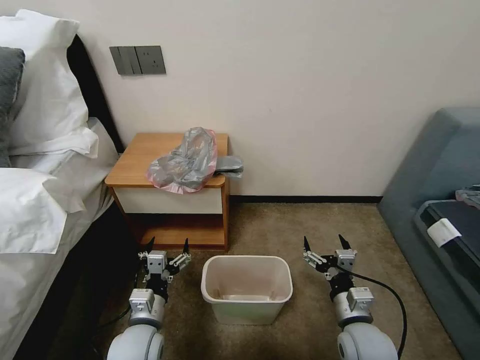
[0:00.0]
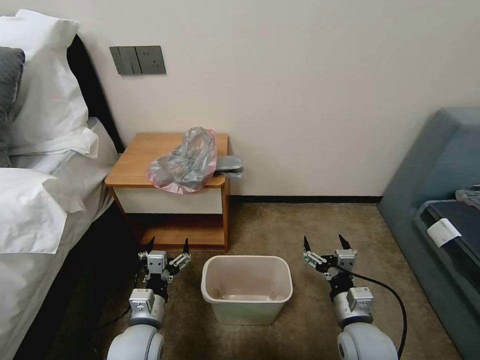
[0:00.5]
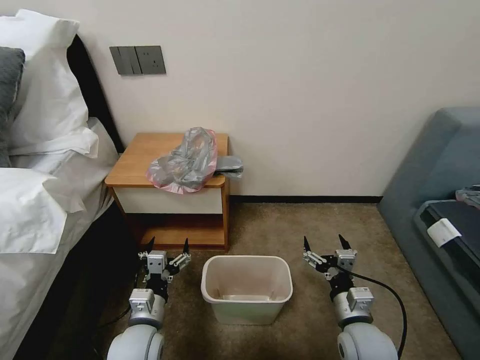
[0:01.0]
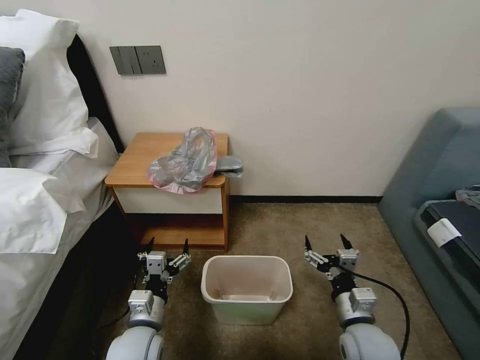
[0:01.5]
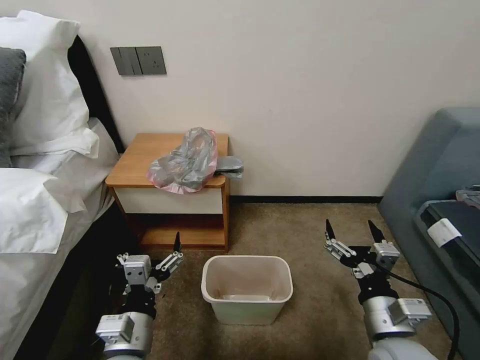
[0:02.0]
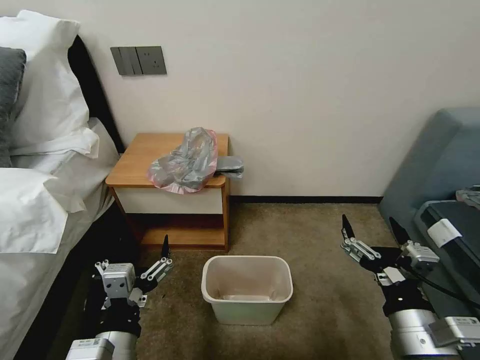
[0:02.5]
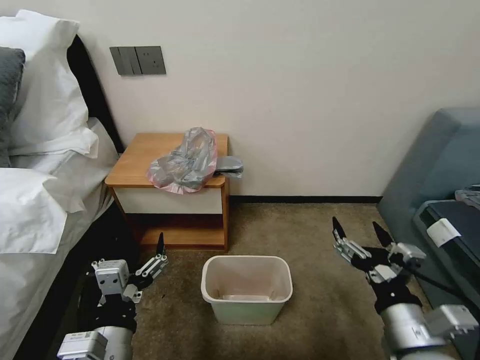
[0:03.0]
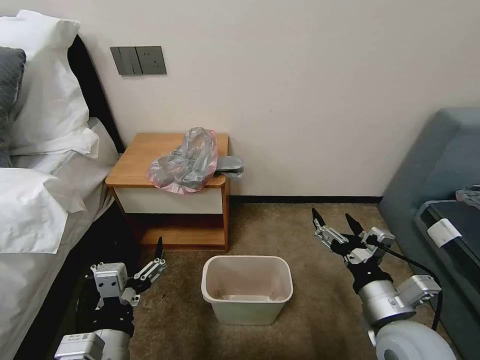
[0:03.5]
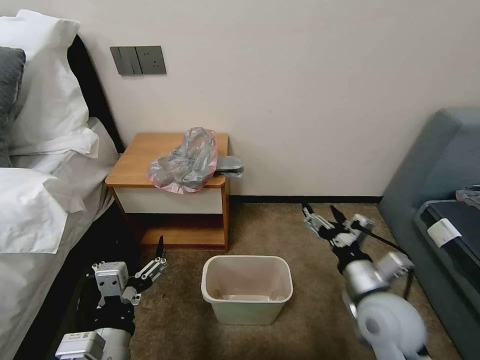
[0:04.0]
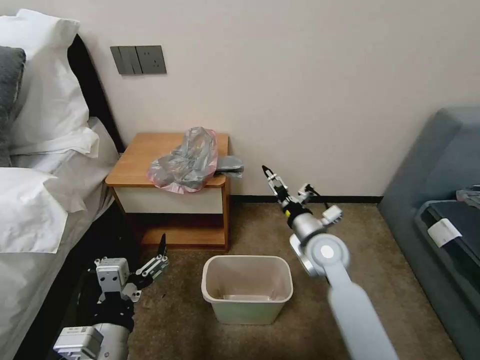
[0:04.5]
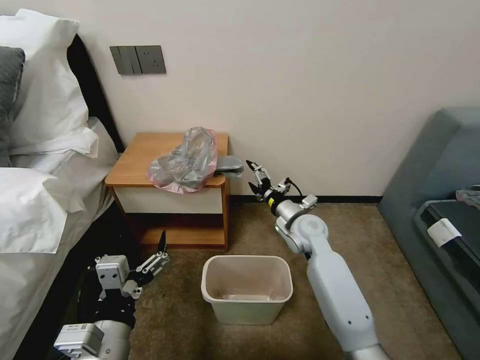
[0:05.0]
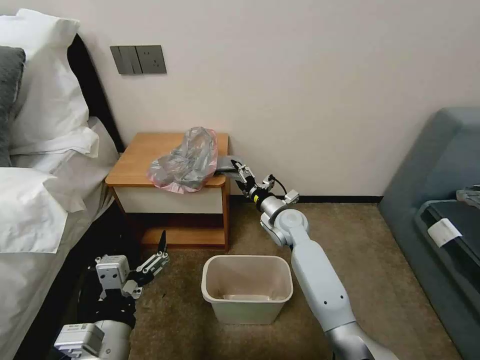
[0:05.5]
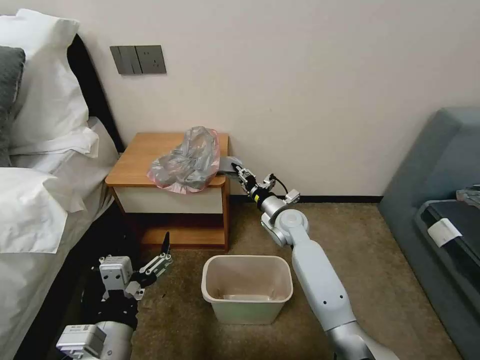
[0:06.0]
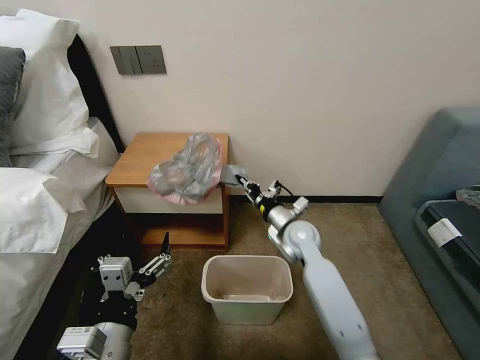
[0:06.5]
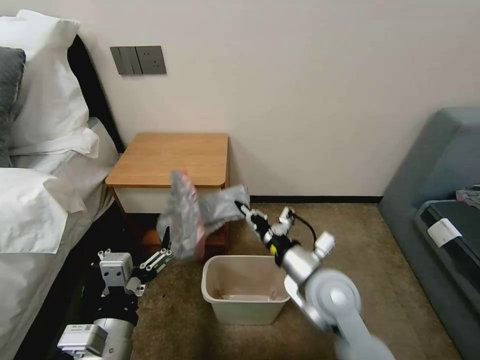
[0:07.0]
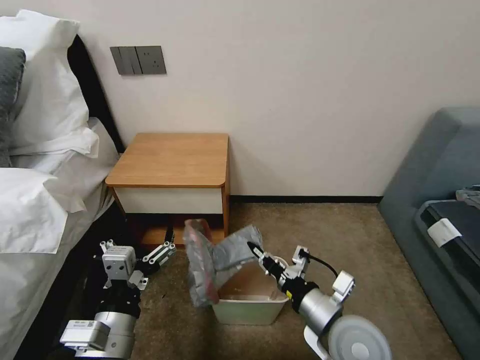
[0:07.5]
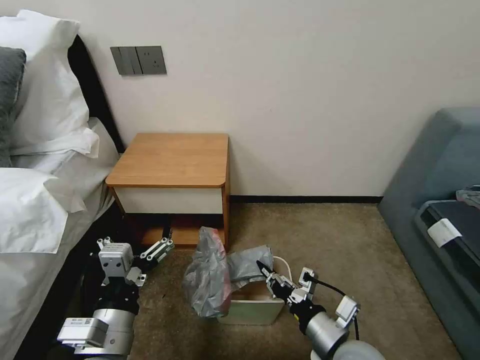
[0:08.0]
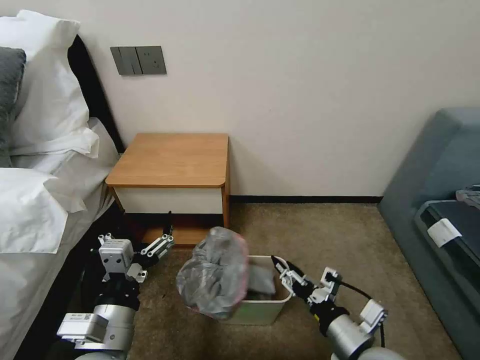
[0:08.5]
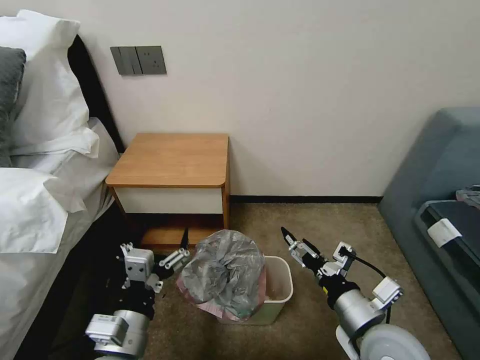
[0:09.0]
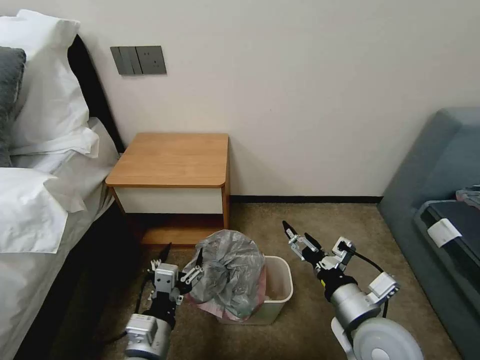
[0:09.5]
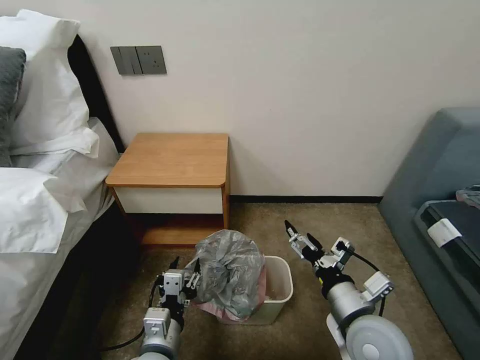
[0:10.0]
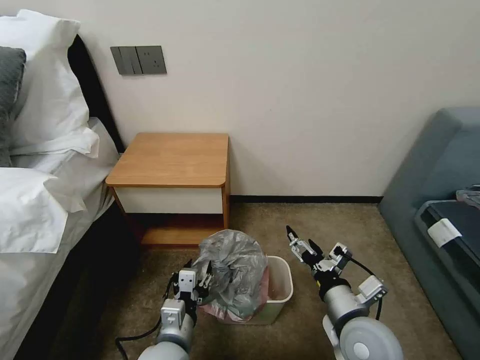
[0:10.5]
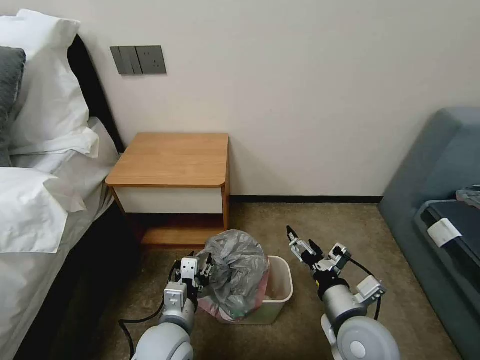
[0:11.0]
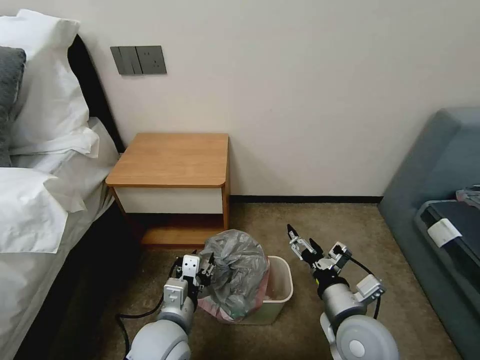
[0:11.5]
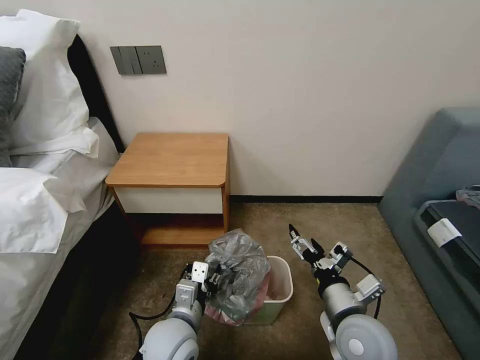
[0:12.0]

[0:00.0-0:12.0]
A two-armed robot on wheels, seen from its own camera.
Task of the whole recording: Pick up the garbage bag from the table and place it over the trash can.
0:02.0 to 0:04.0: The right gripper is displaced forward by some 10 cm. The left gripper changes place by roughly 5 cm.
0:04.0 to 0:06.0: The right gripper heads forward and to the left, covering some 25 cm, and closes its fingers.
0:06.0 to 0:08.0: The right gripper travels backward by about 30 cm.
0:08.0 to 0:10.0: The right gripper heads upward, covering some 5 cm, and opens its fingers. The left gripper goes about 10 cm downward, and closes up.
0:10.0 to 0:12.0: The left gripper moves forward, about 5 cm.

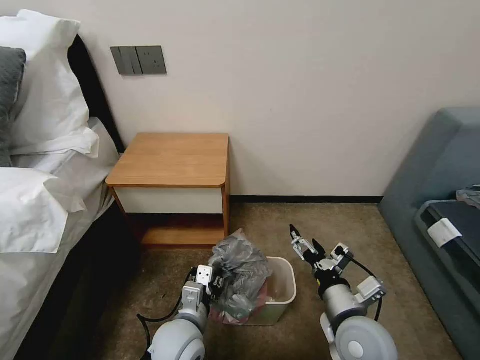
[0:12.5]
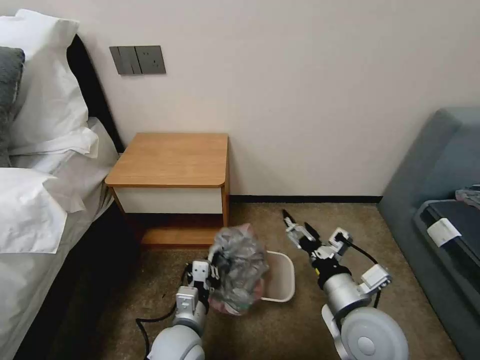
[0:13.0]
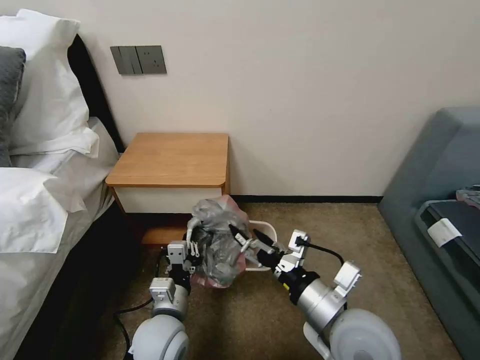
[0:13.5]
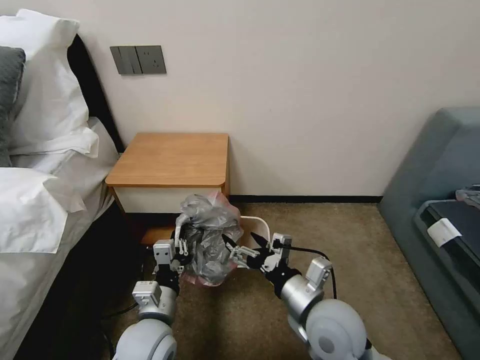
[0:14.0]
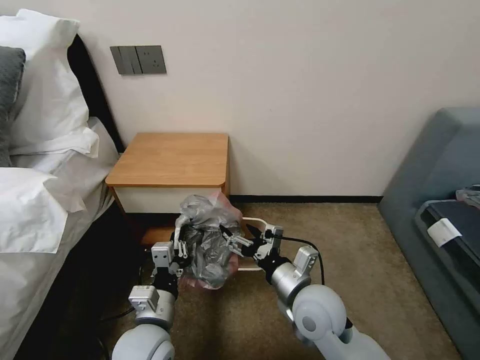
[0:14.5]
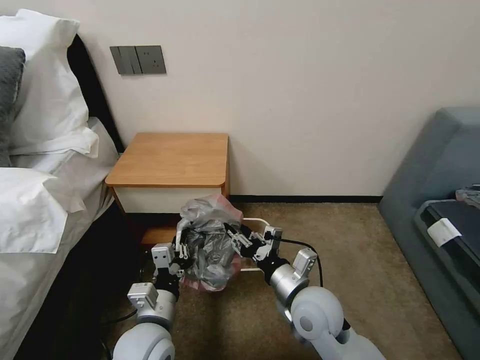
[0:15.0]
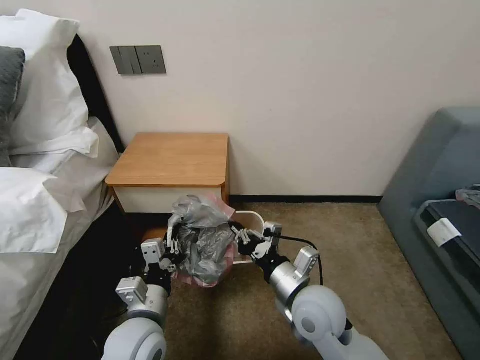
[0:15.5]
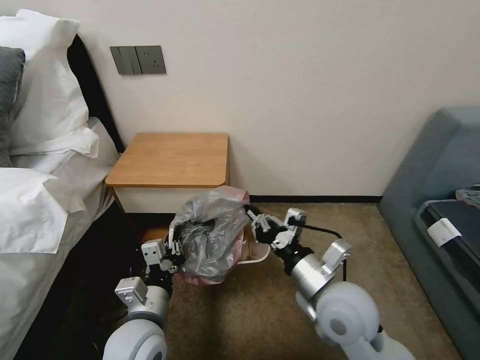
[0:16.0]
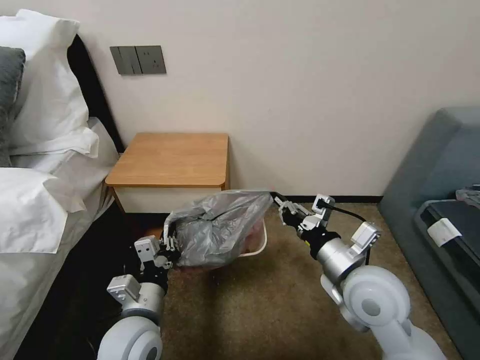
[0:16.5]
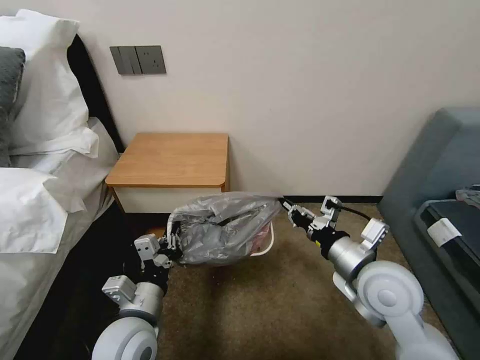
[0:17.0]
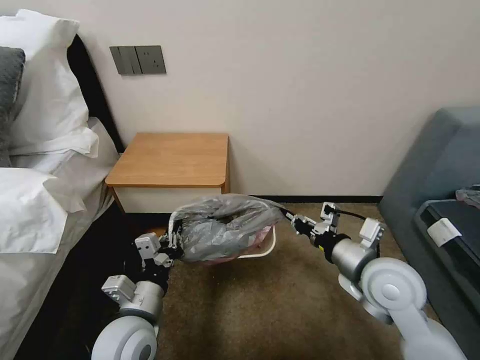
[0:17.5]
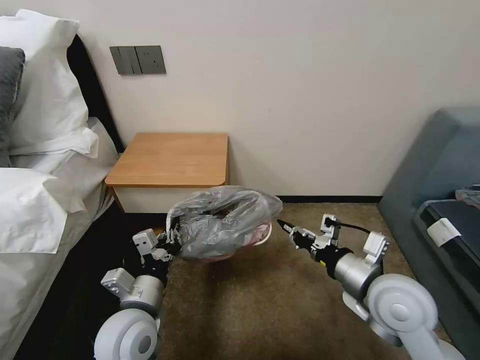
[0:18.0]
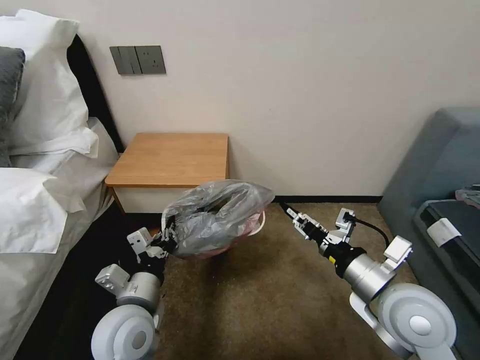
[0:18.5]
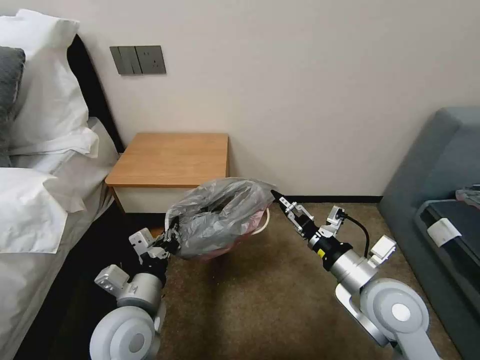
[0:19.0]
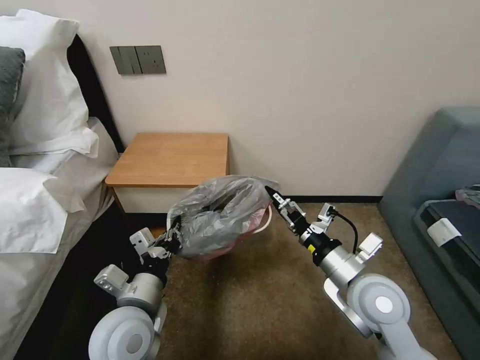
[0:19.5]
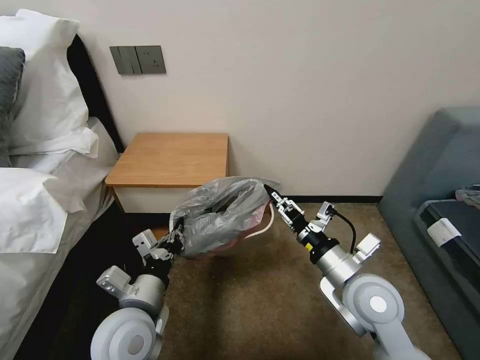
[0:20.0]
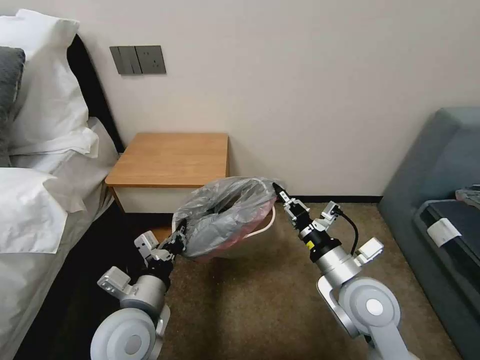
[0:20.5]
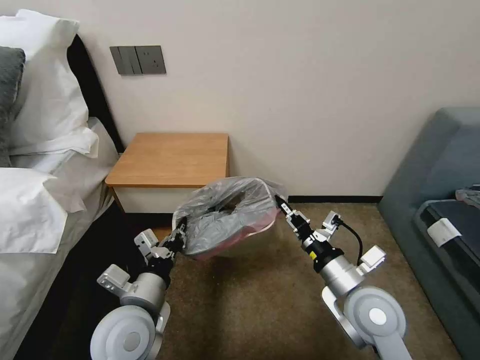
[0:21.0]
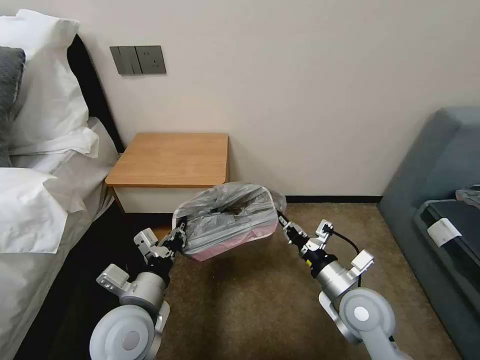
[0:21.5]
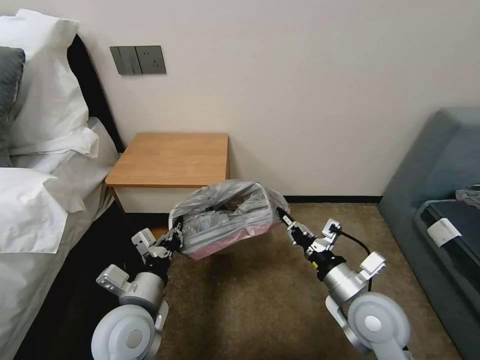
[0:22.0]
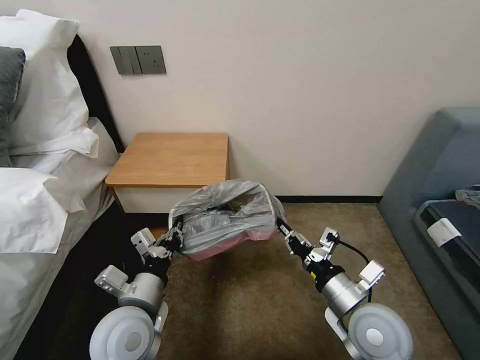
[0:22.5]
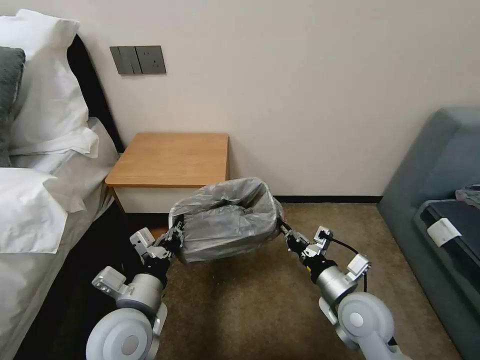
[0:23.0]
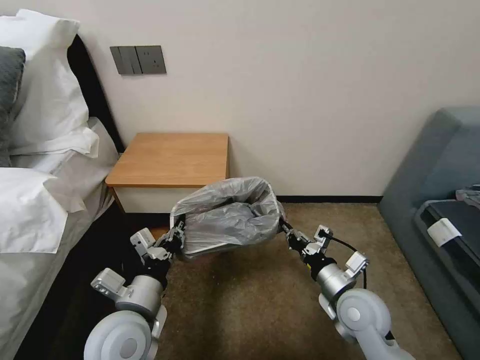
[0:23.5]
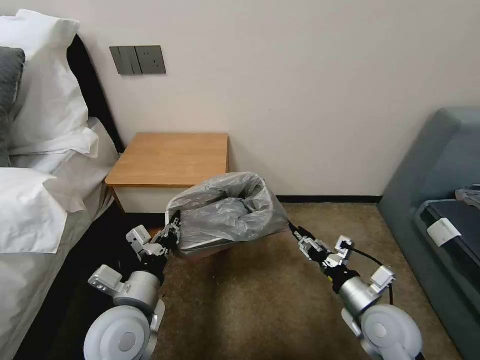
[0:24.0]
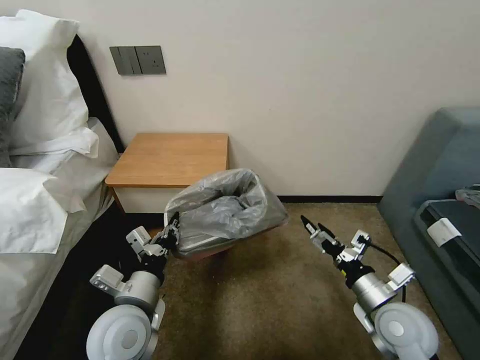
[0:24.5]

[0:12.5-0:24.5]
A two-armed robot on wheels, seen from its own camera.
Task of the whole recording: Pick up the garbage bag from the table and place it over the trash can.
0:12.5 to 0:14.5: The left gripper moves to the left, approximately 5 cm. Meanwhile the right gripper travels to the left and forward by approximately 10 cm.
0:14.5 to 0:16.5: The right gripper travels upward and to the right by some 10 cm, and closes.
0:16.5 to 0:18.5: The right gripper shifts by approximately 5 cm, and opens its fingers.
0:18.5 to 0:20.5: The right gripper ends up some 5 cm from where it was, and closes up.
0:22.5 to 0:24.5: The right gripper goes about 5 cm to the right, and opens its fingers.

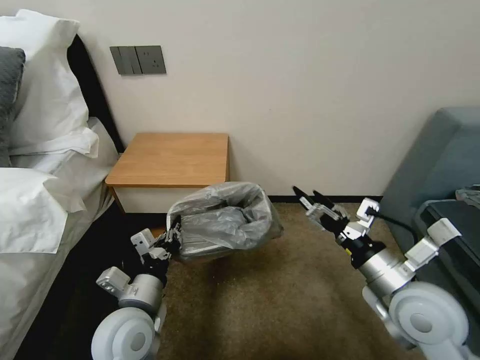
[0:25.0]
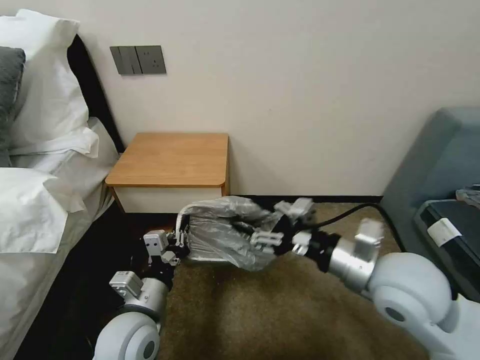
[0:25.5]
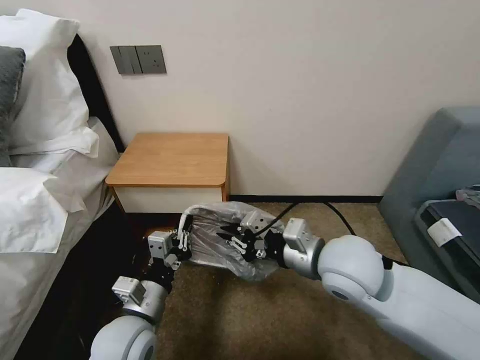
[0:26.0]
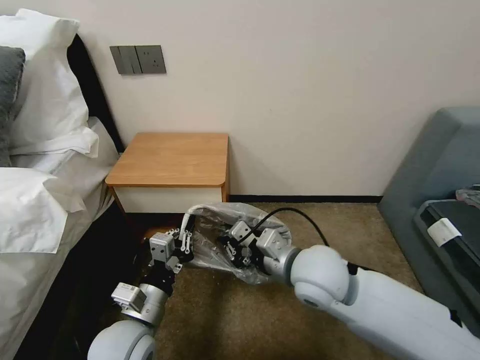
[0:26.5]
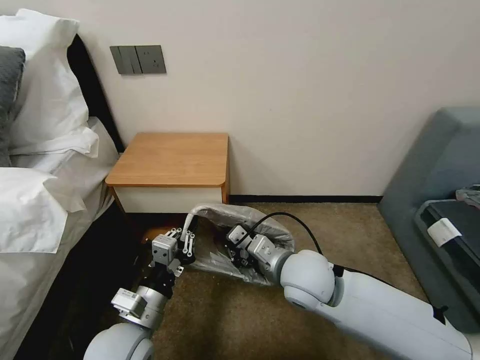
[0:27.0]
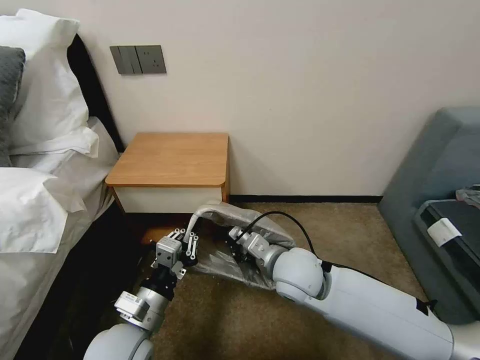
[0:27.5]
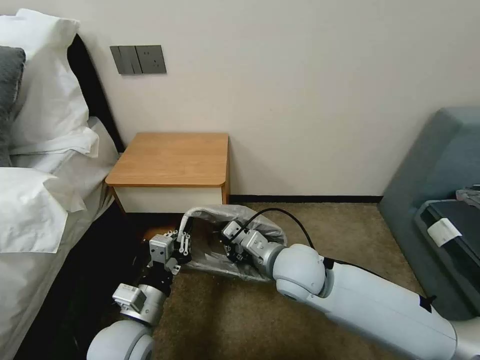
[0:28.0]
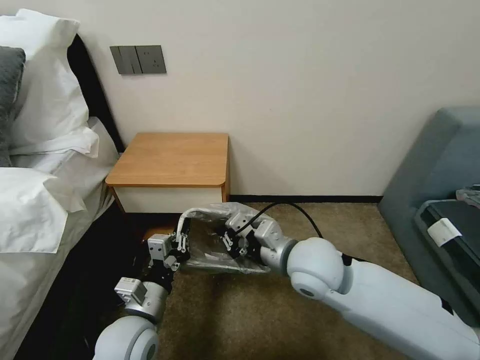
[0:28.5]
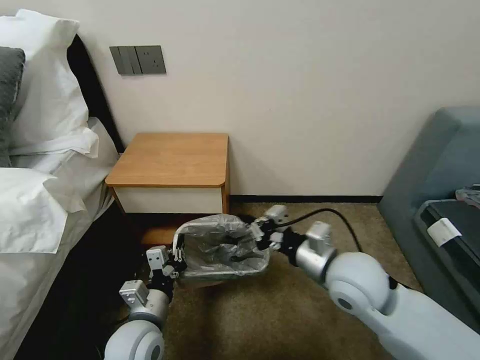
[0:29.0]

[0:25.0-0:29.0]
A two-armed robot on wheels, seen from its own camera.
Task of the whole recording: Pick up the garbage bag from the table and place it over the trash can.
0:25.0 to 0:27.0: The right gripper shifts some 20 cm to the left and forward, and closes up.
0:27.0 to 0:29.0: The left gripper ends up roughly 5 cm from where it was. Meanwhile the right gripper shifts some 5 cm to the right.
